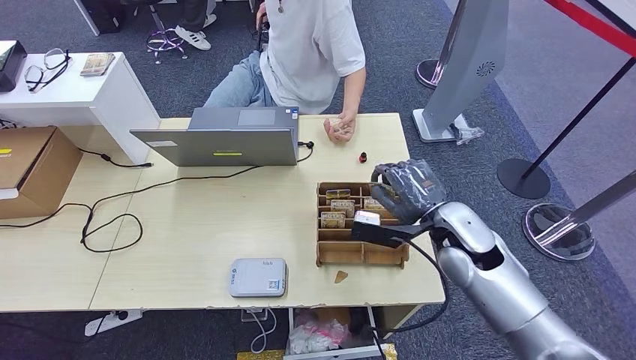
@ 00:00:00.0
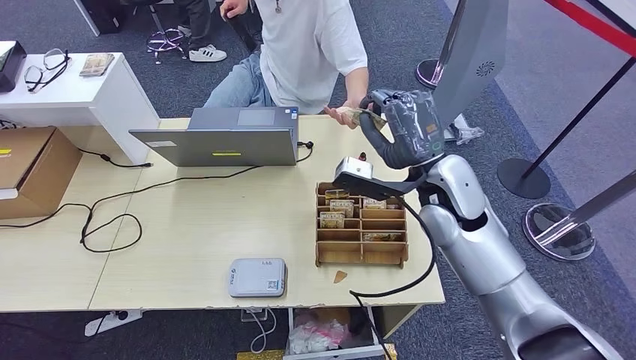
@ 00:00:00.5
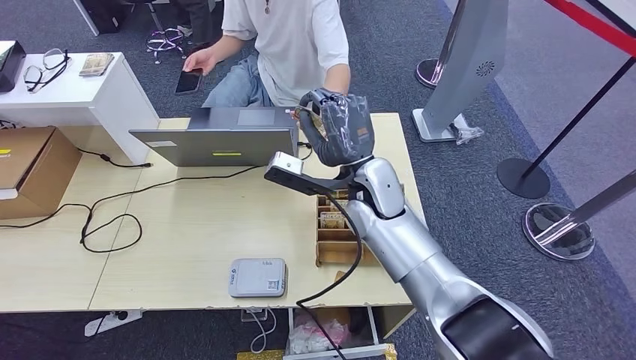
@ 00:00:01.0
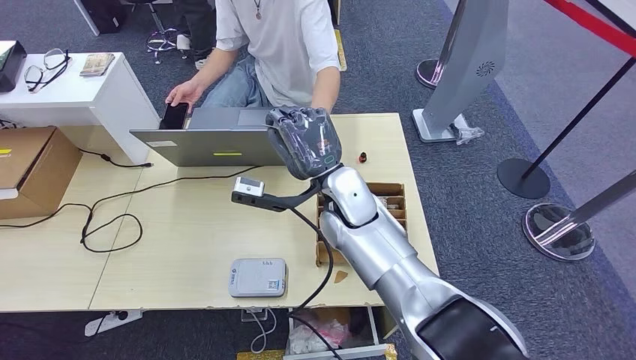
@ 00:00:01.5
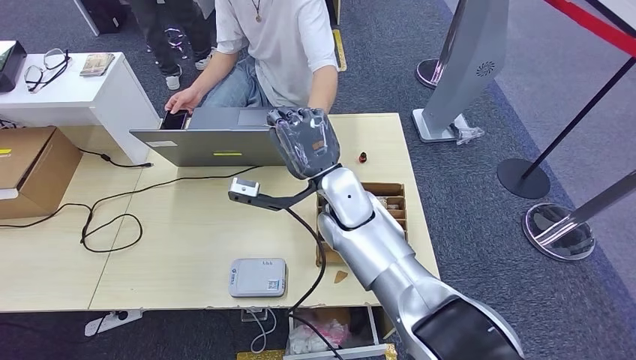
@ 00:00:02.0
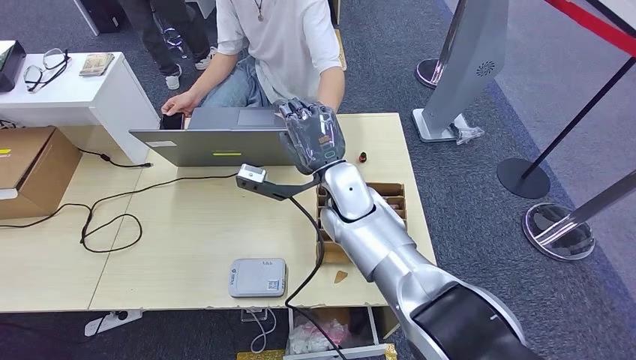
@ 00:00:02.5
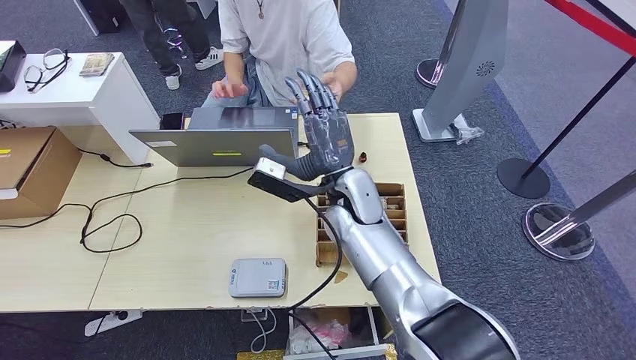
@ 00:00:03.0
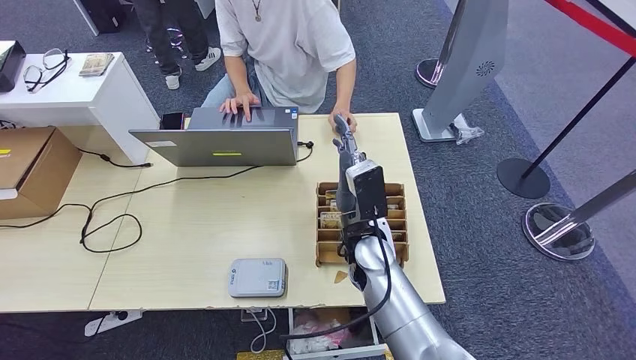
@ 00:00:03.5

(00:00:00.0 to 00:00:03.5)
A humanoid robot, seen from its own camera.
Step, 00:00:00.0 - 00:00:03.5: Hand the room key to the person.
00:00:02.0 - 00:00:03.5: The right hand goes approximately 10 cm downward and backward.
